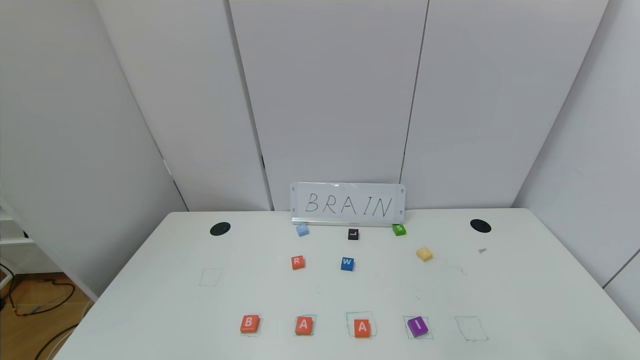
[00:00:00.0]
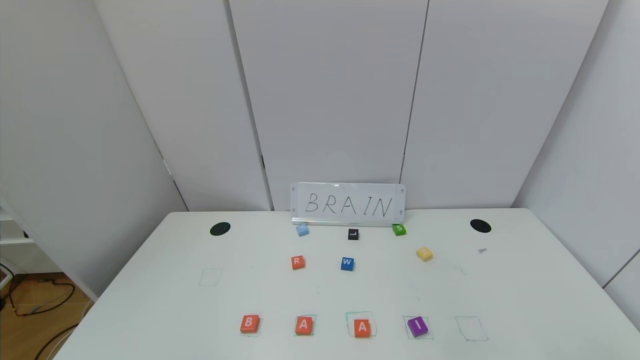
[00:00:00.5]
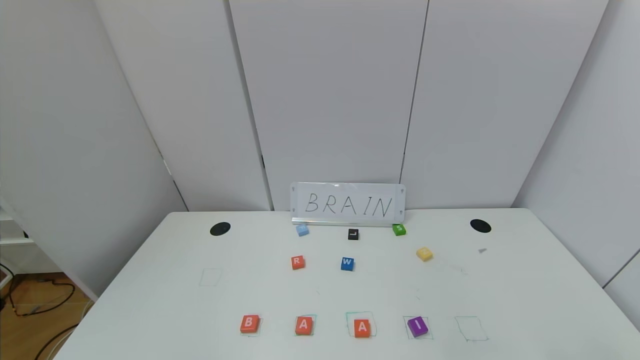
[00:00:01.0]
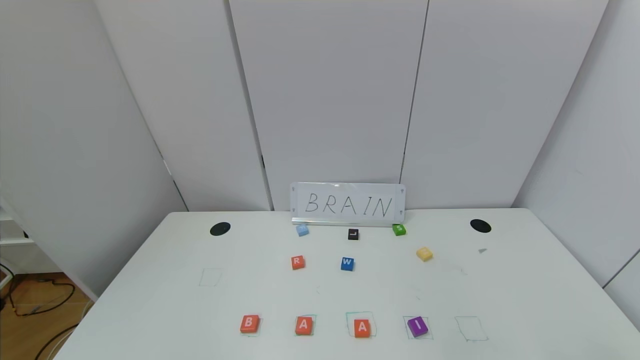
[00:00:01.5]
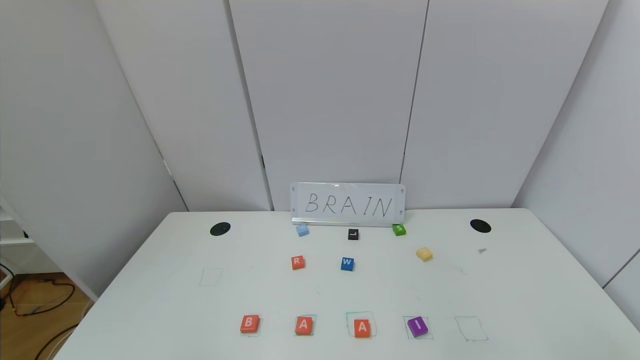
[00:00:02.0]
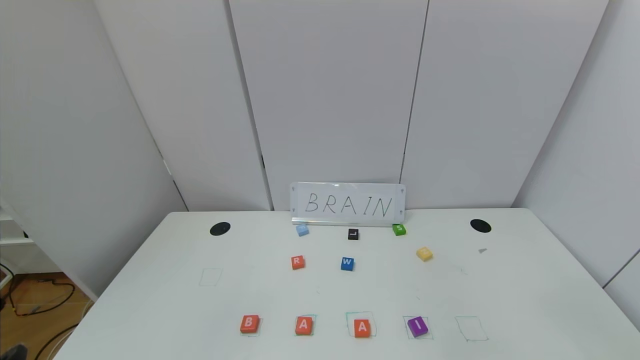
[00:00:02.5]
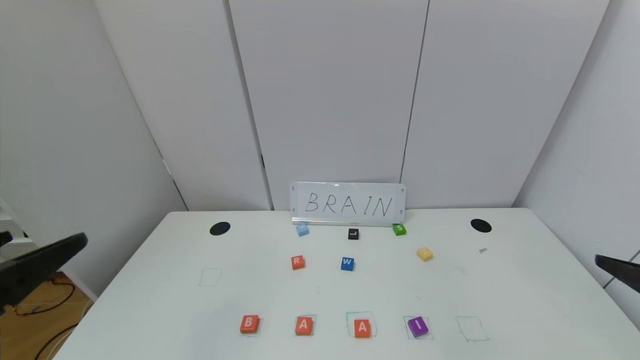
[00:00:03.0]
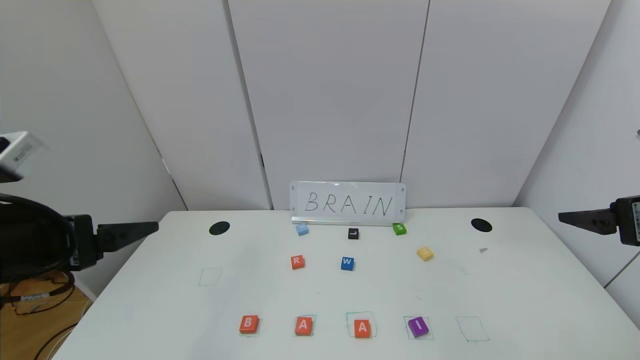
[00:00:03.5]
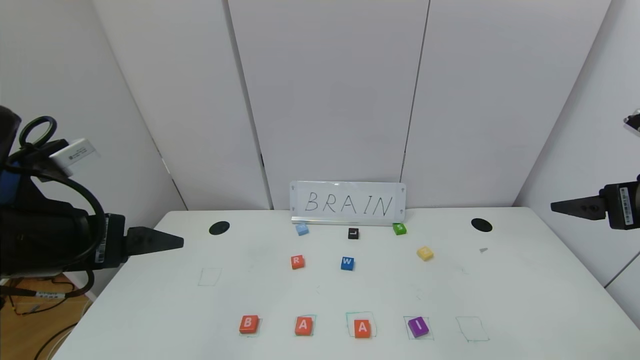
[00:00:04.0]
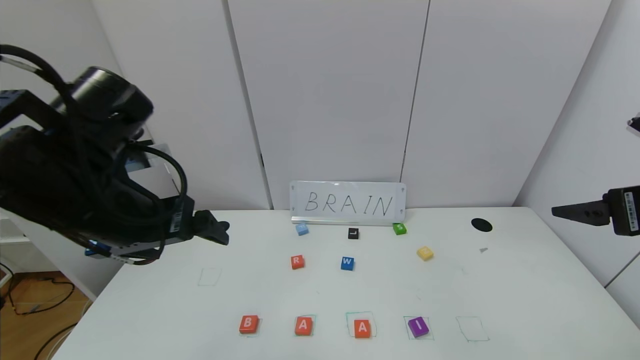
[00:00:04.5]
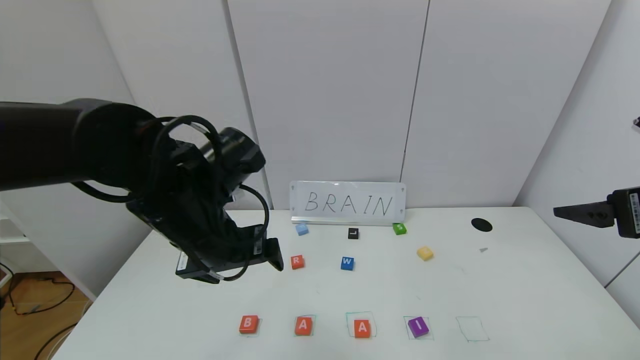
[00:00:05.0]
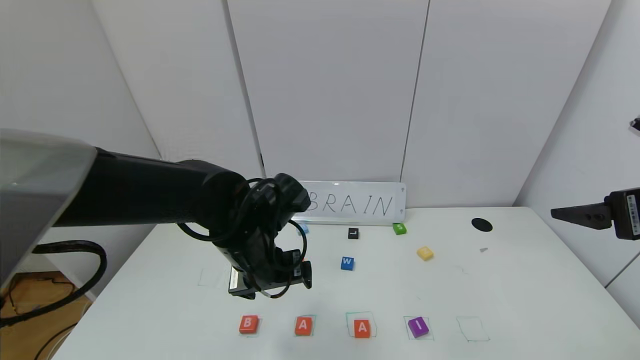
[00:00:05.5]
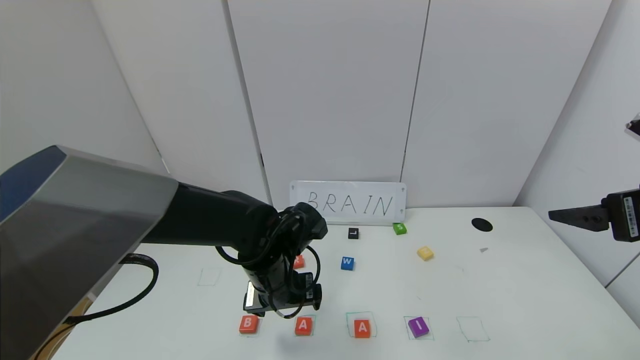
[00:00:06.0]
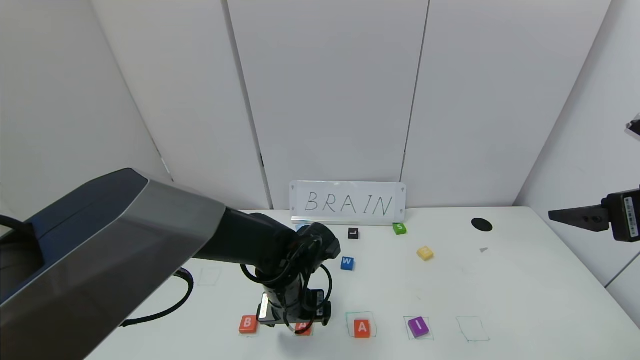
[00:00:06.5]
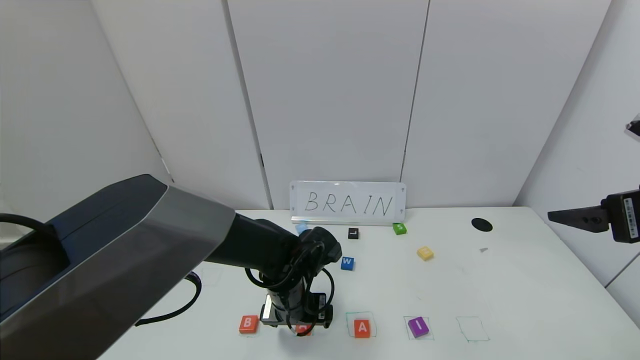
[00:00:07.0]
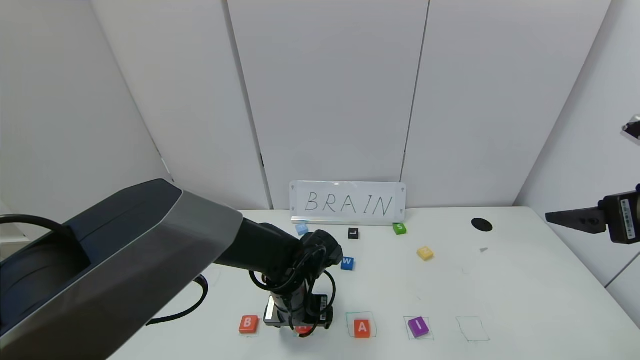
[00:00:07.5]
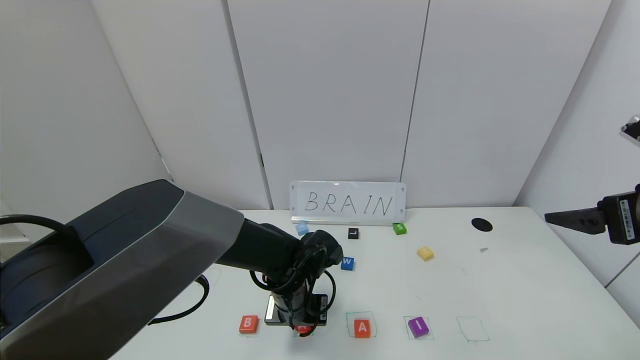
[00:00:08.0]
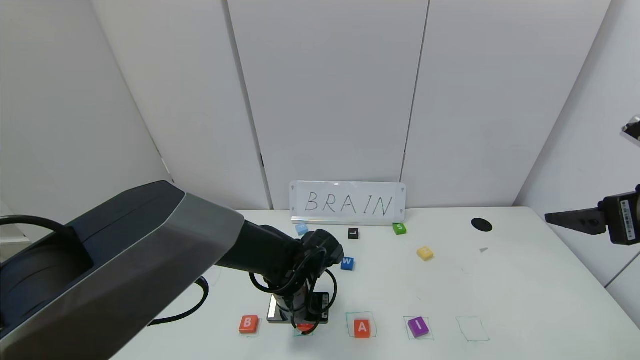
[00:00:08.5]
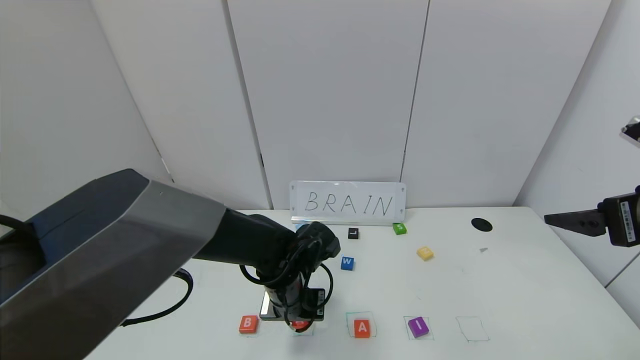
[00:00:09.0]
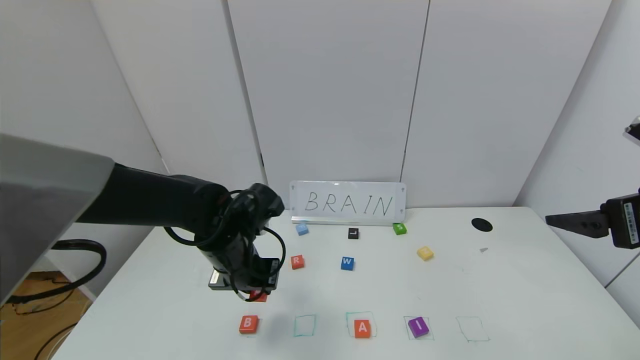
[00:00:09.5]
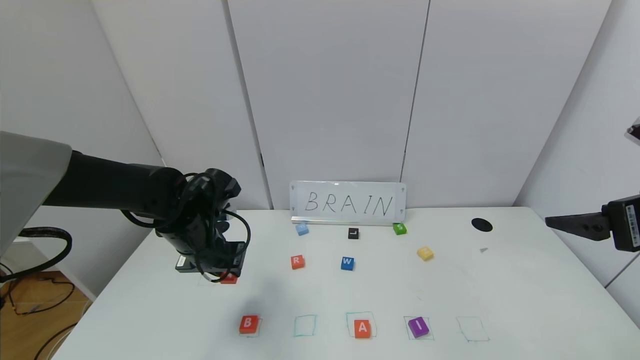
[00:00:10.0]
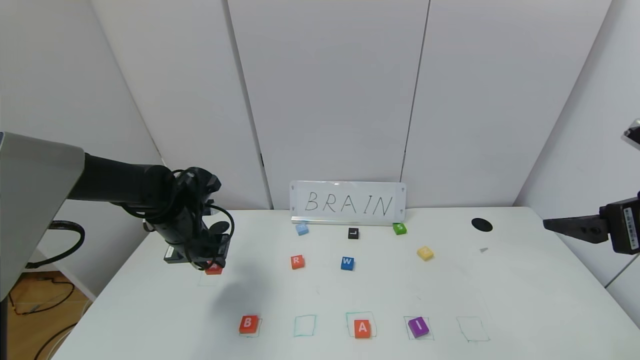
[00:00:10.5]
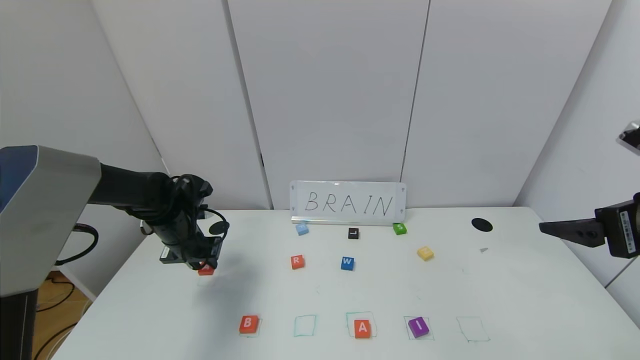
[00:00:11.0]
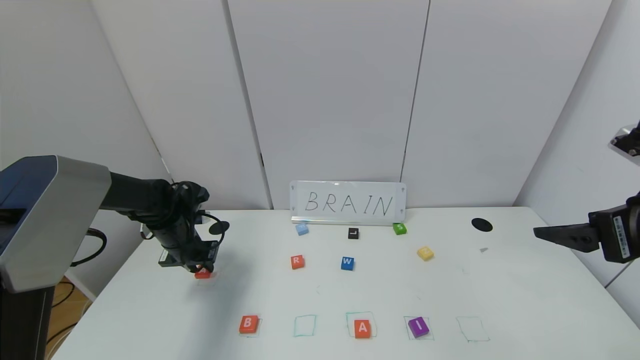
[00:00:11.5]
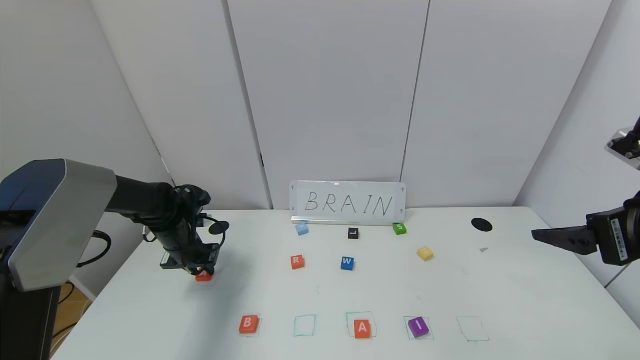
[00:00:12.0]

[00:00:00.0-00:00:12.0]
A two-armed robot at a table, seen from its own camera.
Task of the whole recording: use the gripper to find blocks with the letters b, a, a, and i on the table and arrange them into BAAI, then find r and N and turn the arranged baai into brian.
00:00:02.0 to 00:00:04.0: The two grippers go some 30 cm forward and upward.
00:00:04.0 to 00:00:06.0: The left gripper moves to the right, downward and forward, roughly 25 cm.
00:00:06.0 to 00:00:08.0: The left gripper heads downward, covering some 5 cm, and closes up.
00:00:08.0 to 00:00:10.0: The left gripper heads to the left and upward, covering roughly 15 cm.
00:00:10.0 to 00:00:12.0: The left gripper heads to the left, forward and downward, covering roughly 15 cm.

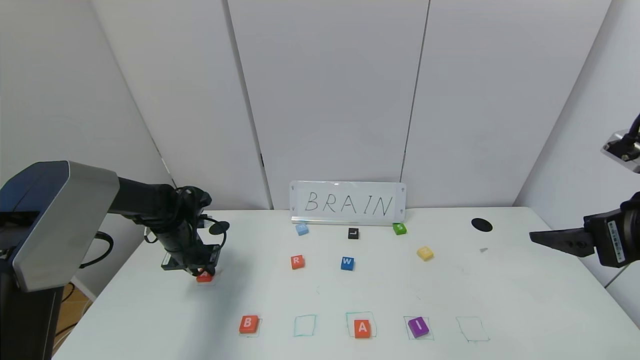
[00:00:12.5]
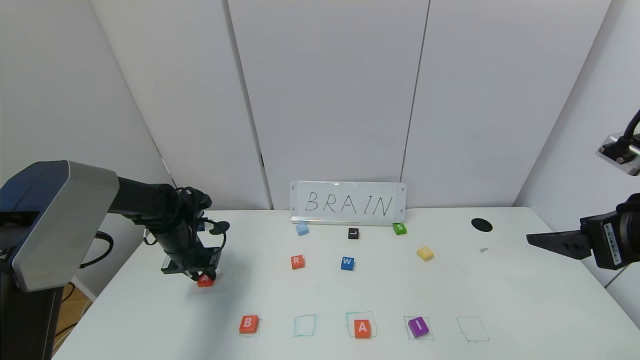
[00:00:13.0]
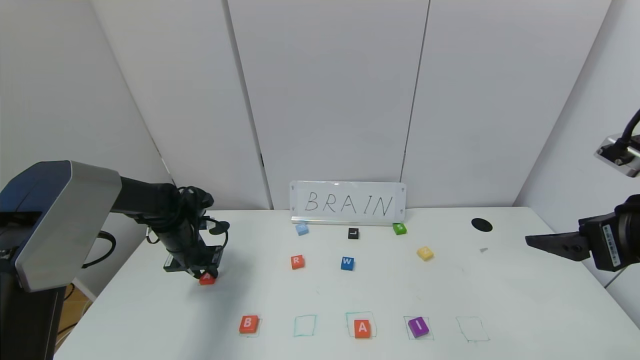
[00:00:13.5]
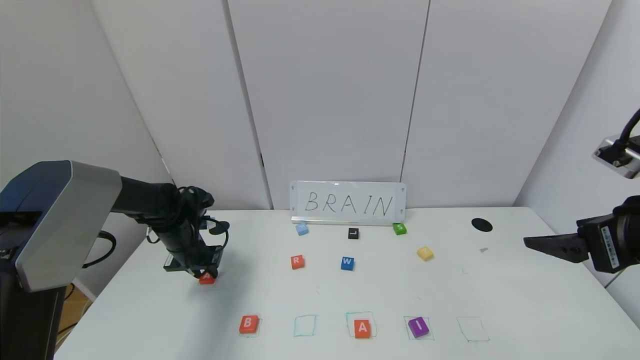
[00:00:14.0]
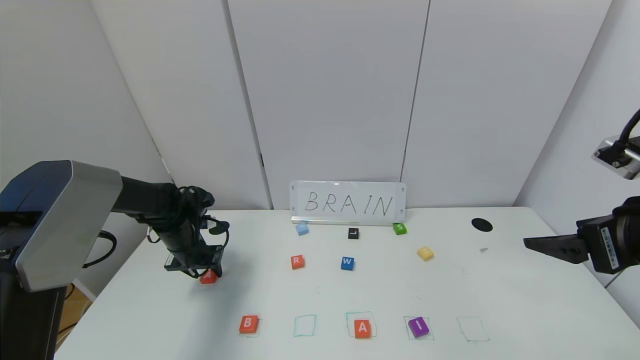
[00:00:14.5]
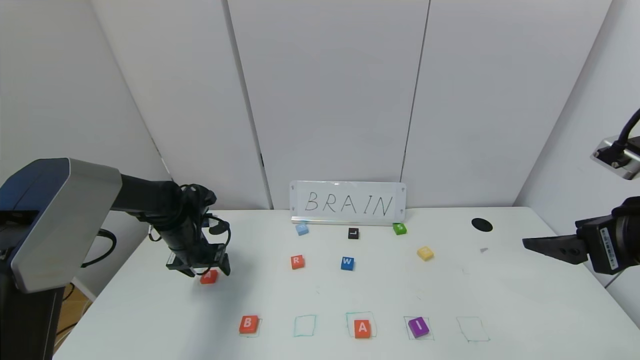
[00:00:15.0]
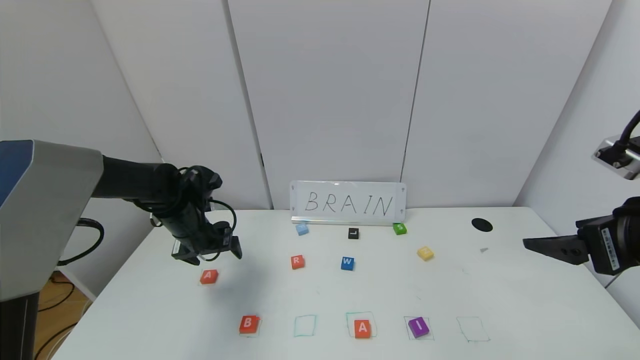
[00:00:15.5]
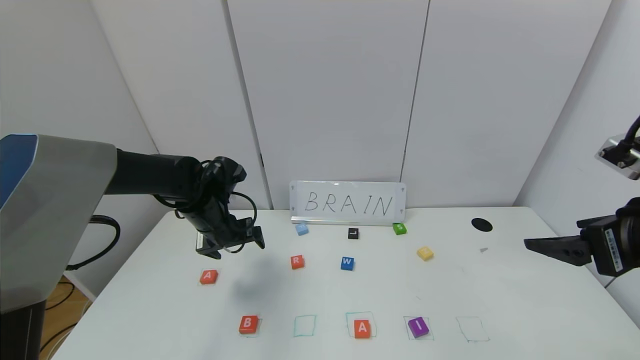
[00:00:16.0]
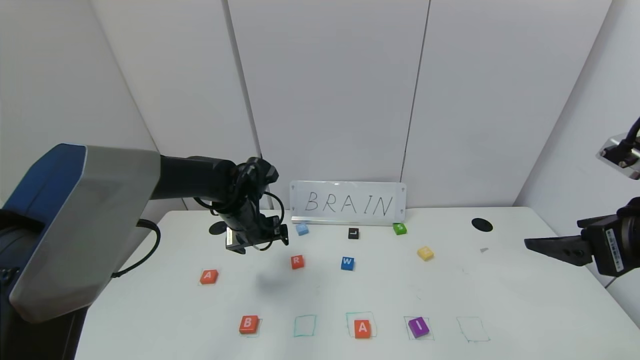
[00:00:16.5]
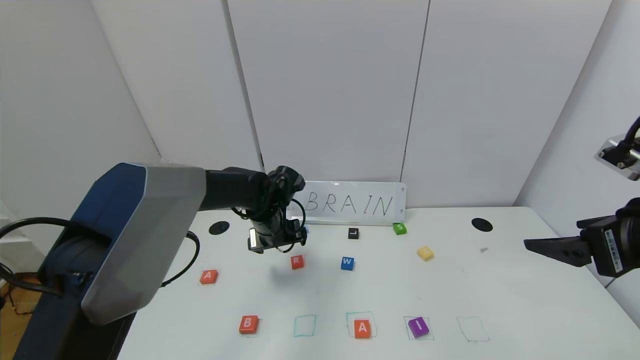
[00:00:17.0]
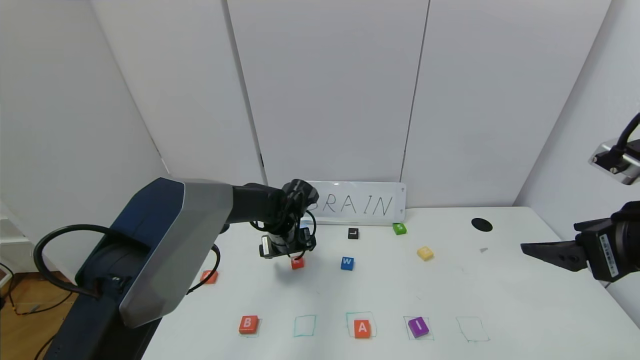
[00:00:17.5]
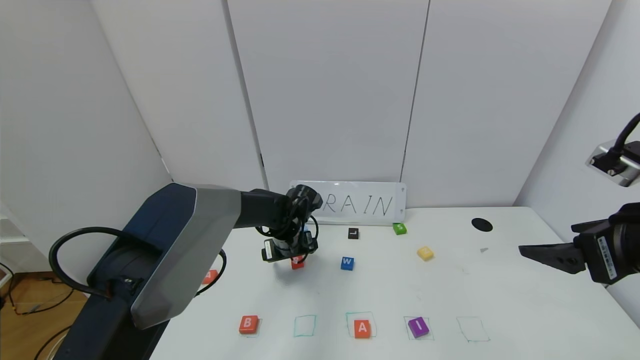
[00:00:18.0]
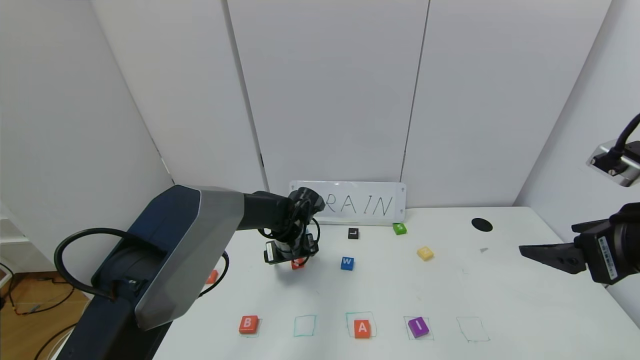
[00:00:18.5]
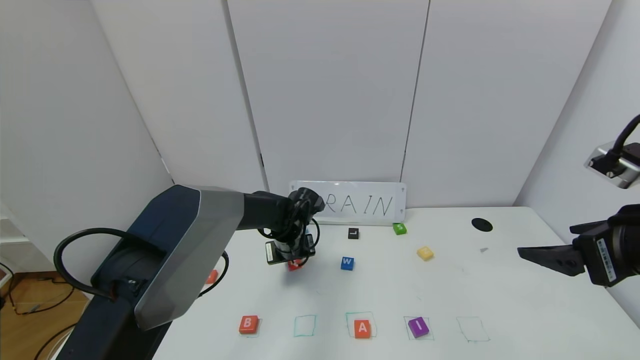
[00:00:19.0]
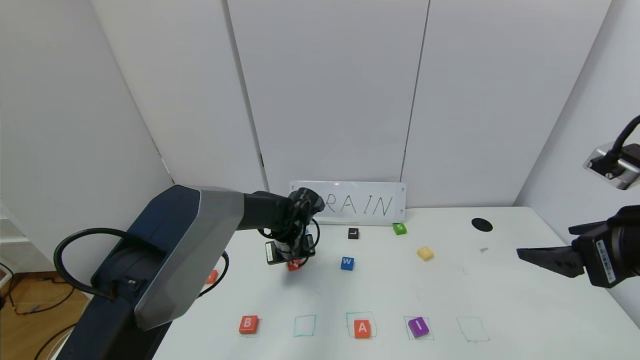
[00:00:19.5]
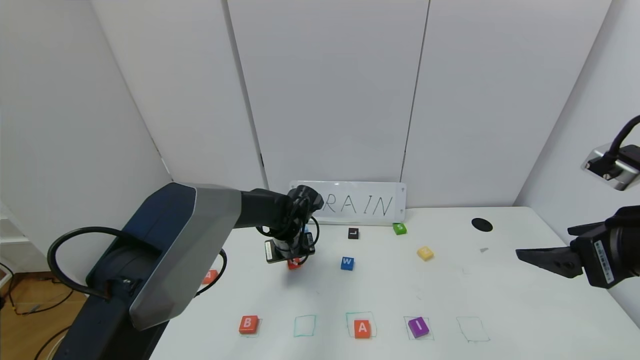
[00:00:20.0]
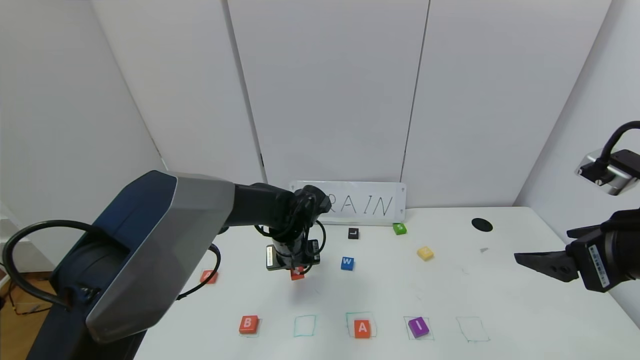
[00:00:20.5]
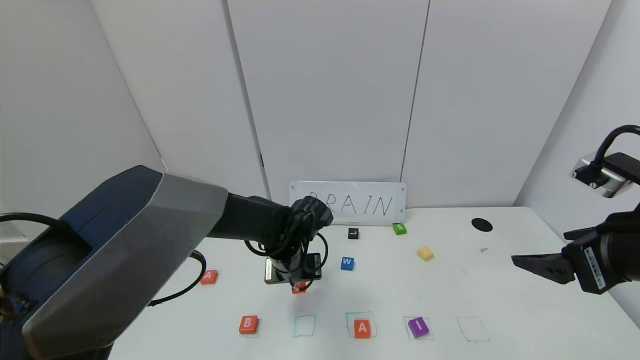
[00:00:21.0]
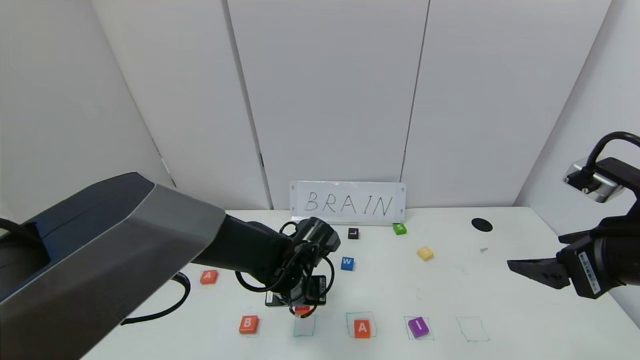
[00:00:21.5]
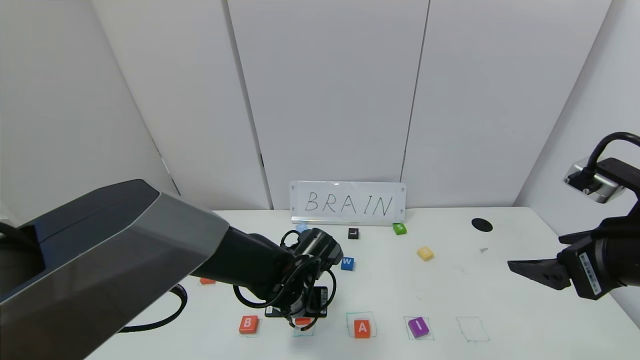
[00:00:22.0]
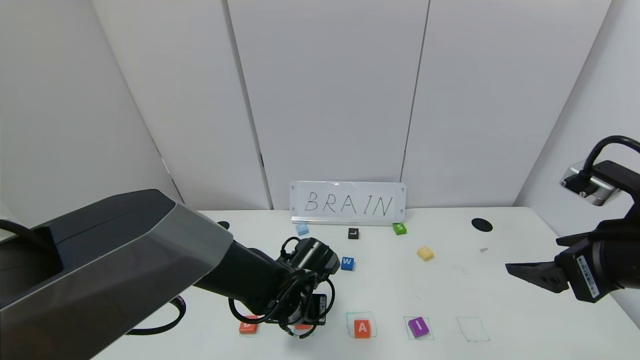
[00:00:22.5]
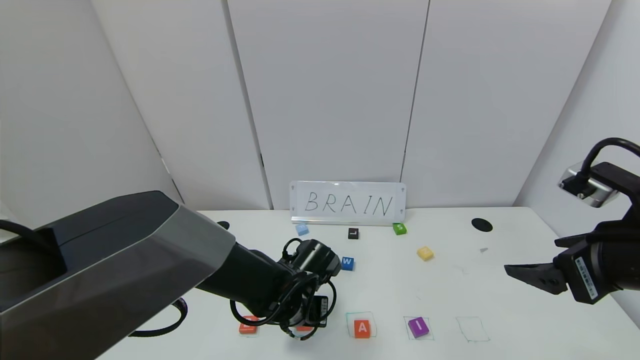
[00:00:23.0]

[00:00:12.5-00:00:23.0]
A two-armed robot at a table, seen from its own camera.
Task of the whole recording: use the gripper to find blocks with the letters b, a, a, and i on the table and arrange them into BAAI, then find r and N and turn the arranged baai into brian.
Step, 00:00:12.5 to 00:00:15.0: Move the block A out of the second location.
00:00:12.5 to 00:00:14.5: The left gripper opens up.
00:00:14.5 to 00:00:16.5: The left gripper is displaced to the right and upward by some 15 cm, and opens its fingers.
00:00:16.5 to 00:00:19.0: The left gripper travels downward and to the right by roughly 10 cm, and closes.
00:00:19.0 to 00:00:21.0: The left gripper heads backward, covering some 5 cm.
00:00:21.0 to 00:00:23.0: The left gripper travels backward by some 5 cm.
